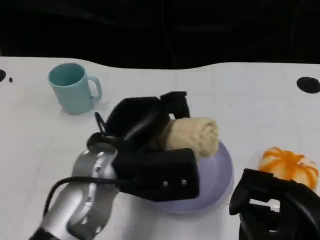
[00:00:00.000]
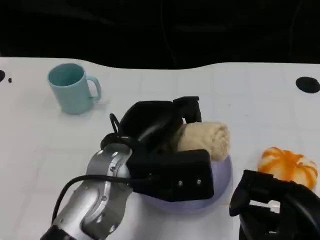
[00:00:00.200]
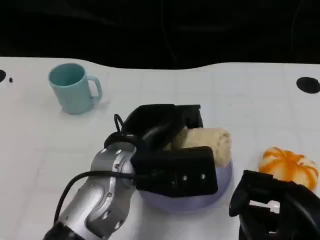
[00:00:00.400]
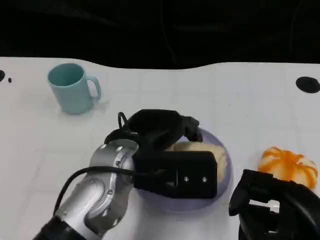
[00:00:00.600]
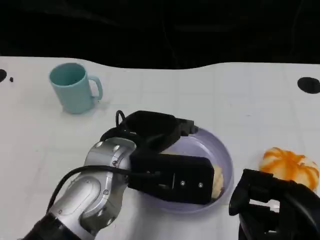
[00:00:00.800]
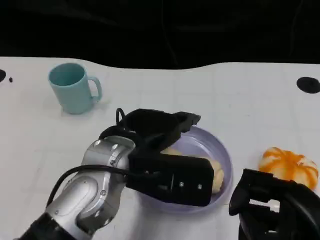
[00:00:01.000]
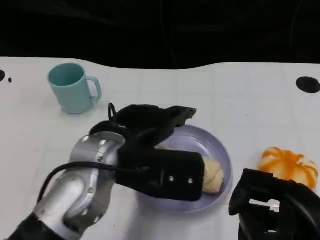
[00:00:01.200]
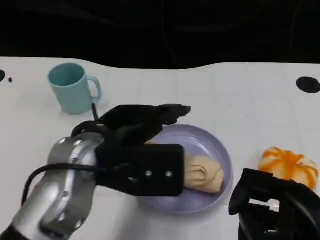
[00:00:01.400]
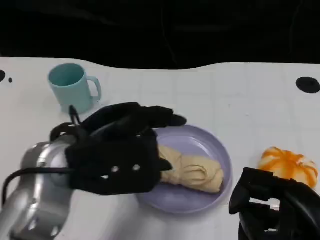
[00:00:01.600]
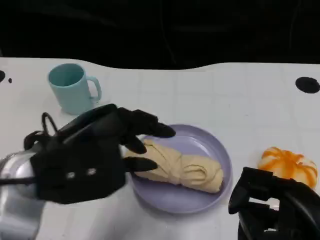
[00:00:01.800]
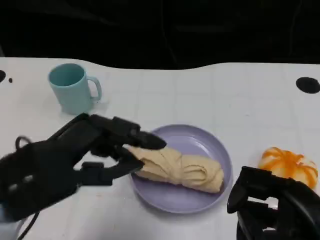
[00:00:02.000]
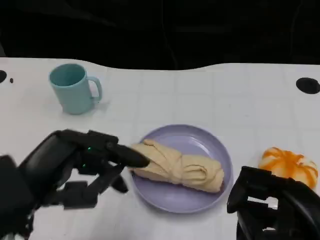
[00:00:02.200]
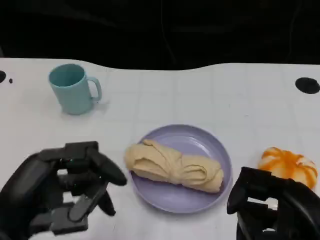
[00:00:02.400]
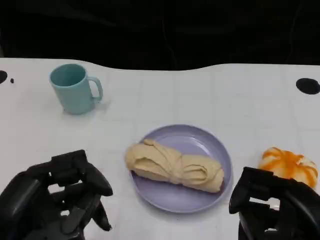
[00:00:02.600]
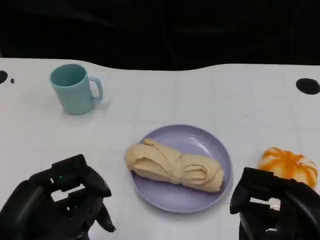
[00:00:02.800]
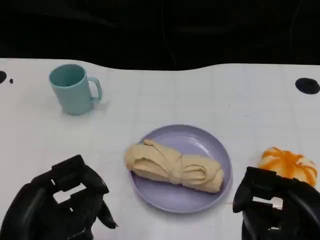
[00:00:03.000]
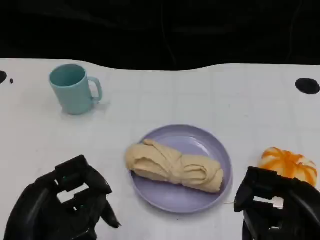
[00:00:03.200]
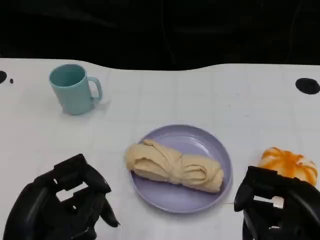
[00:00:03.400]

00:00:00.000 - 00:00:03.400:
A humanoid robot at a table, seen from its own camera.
Task of the whole recording: Grasp the towel on the left side of the plate with the left hand and place it into the plate.
00:00:00.000 - 00:00:01.600: The left hand heads to the left, covering about 5 cm.
00:00:01.600 - 00:00:03.400: The left hand shifts approximately 15 cm backward, downward and to the left.
